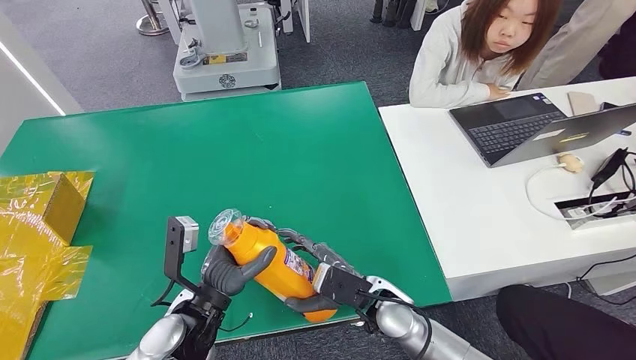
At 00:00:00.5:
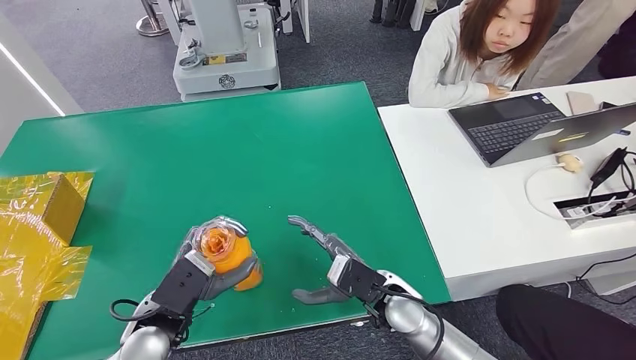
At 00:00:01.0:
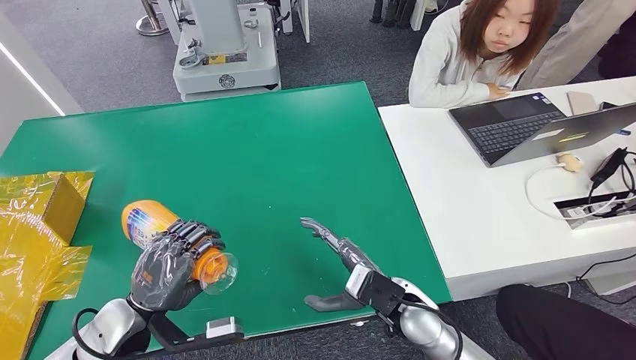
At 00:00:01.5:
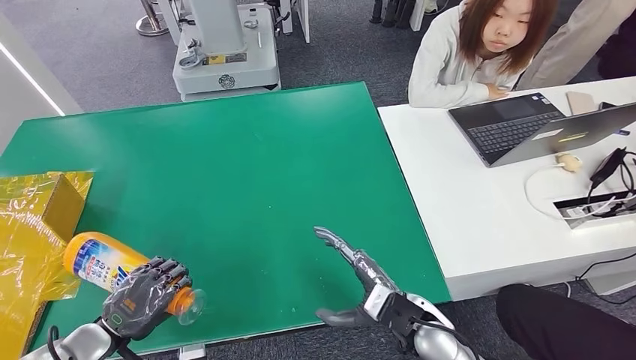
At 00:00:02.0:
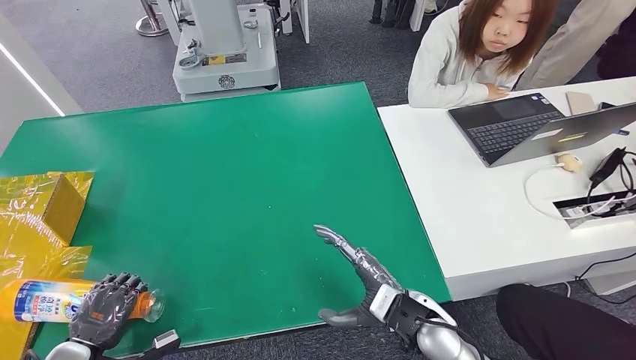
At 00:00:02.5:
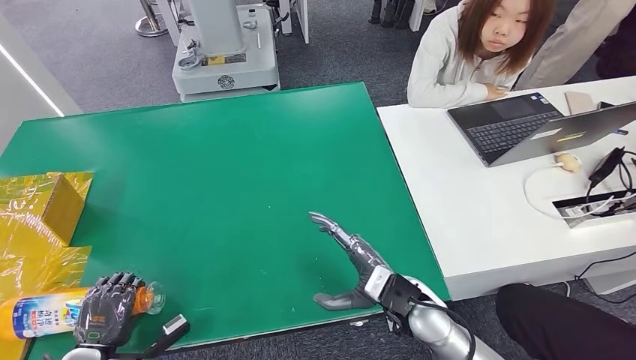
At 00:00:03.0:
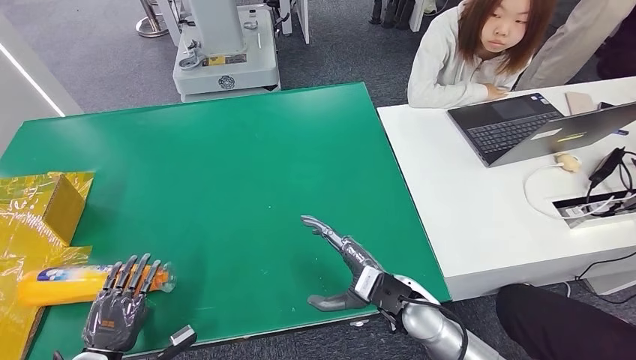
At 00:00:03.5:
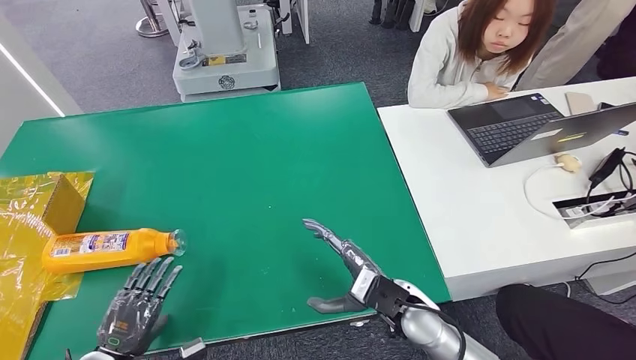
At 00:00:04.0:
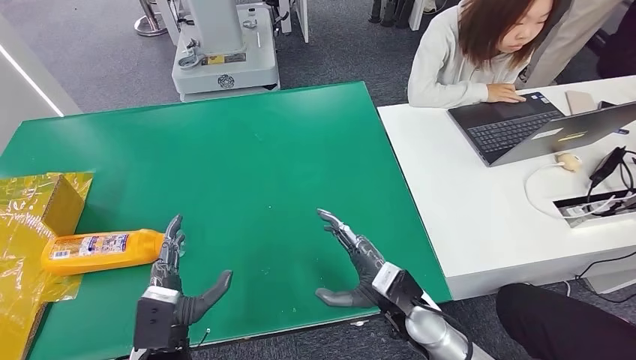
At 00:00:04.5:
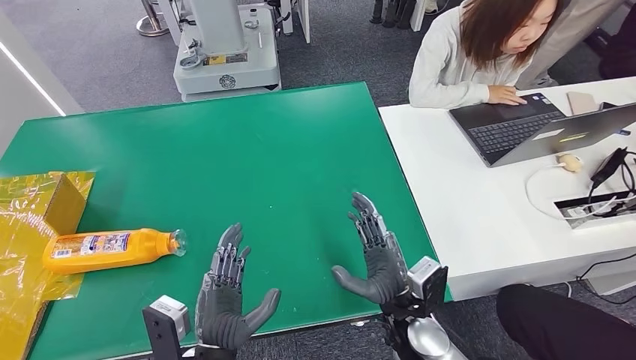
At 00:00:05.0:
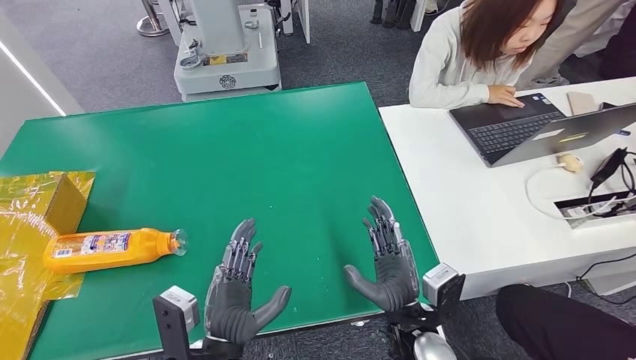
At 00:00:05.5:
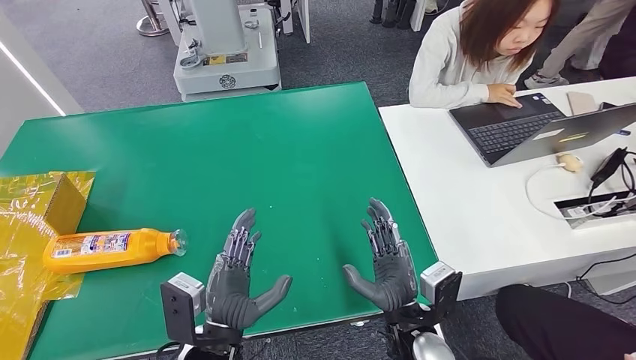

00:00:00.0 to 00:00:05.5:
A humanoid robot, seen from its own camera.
Step, 00:00:00.0 to 00:00:05.5: Turn the bottle to the front side.
00:00:00.0 to 00:00:02.0: The right hand ends up some 5 cm from where it was; the left hand heads to the left, covering approximately 25 cm.
00:00:02.0 to 00:00:03.5: The left hand moves to the right, roughly 5 cm.
00:00:03.5 to 00:00:05.5: The left hand shifts roughly 20 cm to the right, while the right hand ends up roughly 5 cm from where it was.

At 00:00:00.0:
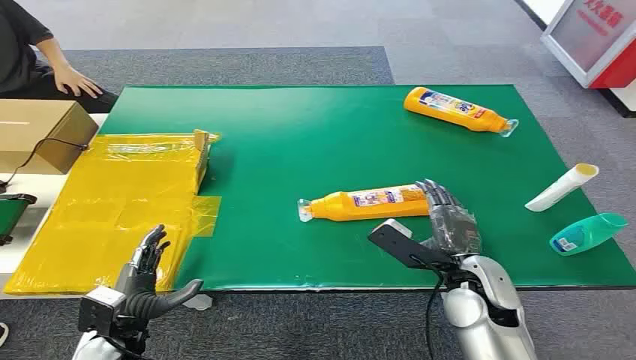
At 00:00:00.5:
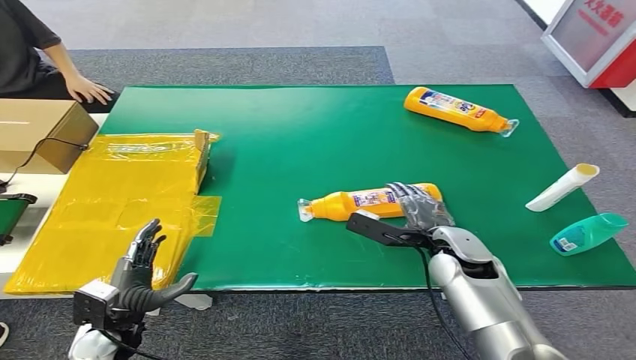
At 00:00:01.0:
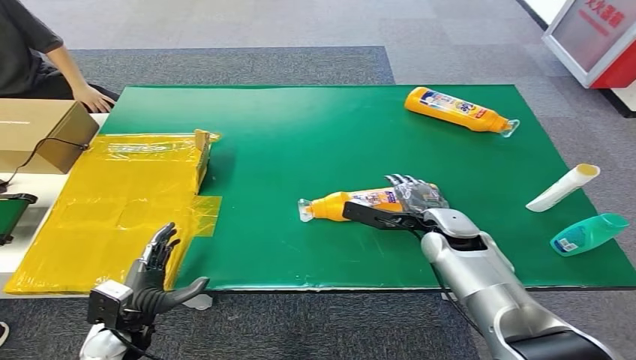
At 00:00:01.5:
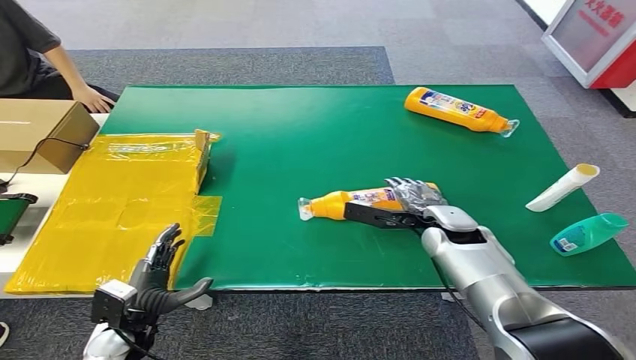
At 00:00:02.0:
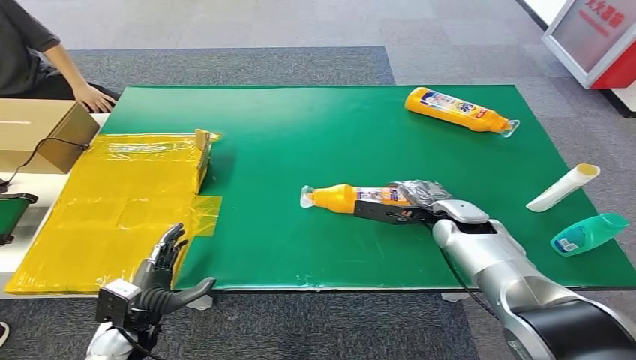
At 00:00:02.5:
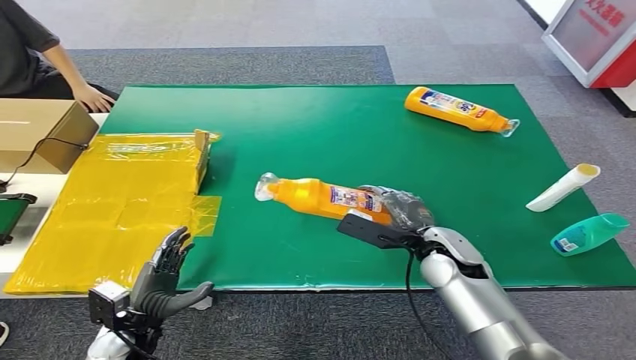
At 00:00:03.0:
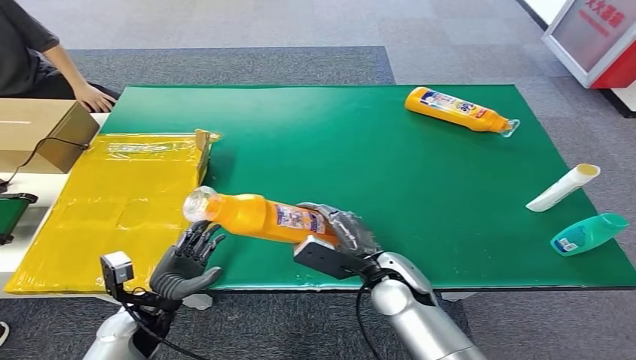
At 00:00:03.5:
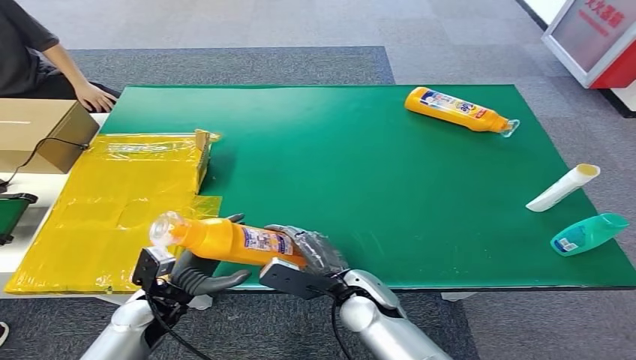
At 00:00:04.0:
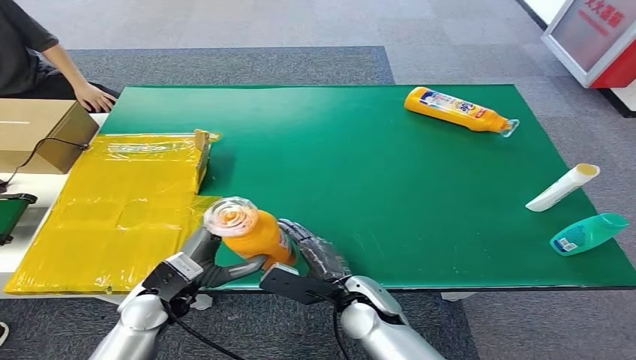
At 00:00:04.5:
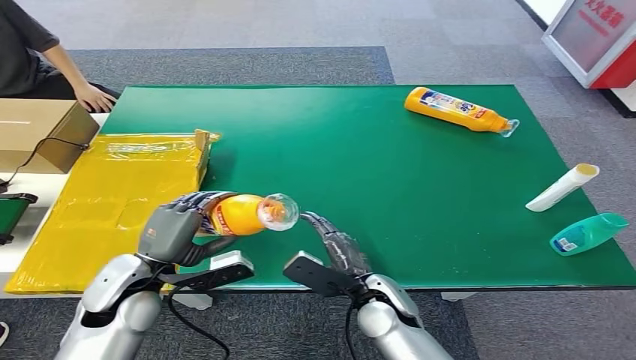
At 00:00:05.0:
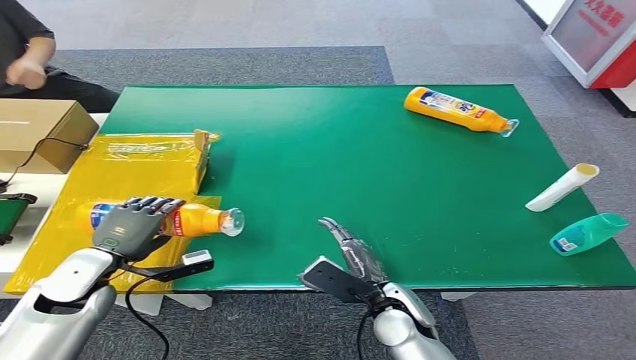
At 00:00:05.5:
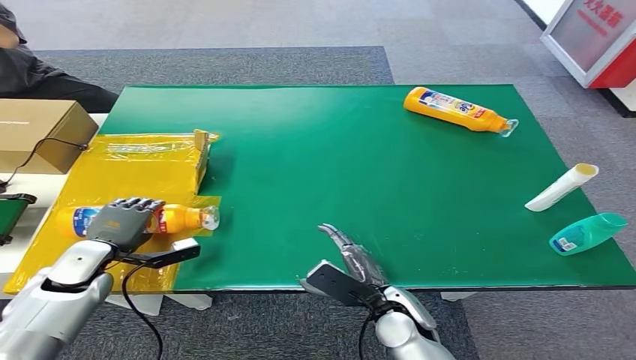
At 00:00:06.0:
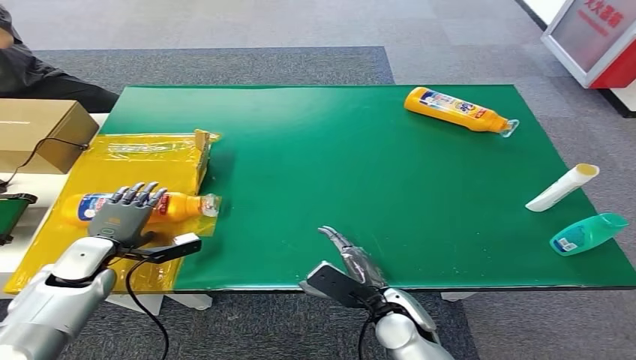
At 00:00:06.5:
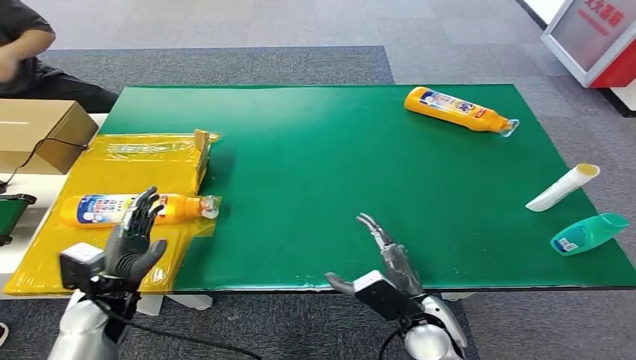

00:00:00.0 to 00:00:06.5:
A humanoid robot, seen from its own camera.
Step, 00:00:00.0 to 00:00:02.5: Pick up the bottle from the table.
Step, 00:00:03.0 to 00:00:06.5: Turn the bottle to the front side.
00:00:04.5 to 00:00:06.5: The right hand heads to the right, covering roughly 5 cm. Meanwhile the left hand goes roughly 10 cm downward and to the left.
